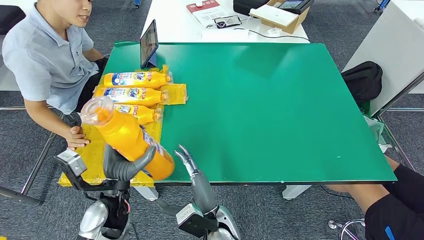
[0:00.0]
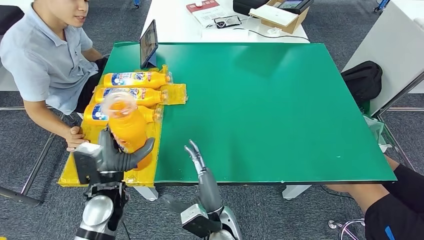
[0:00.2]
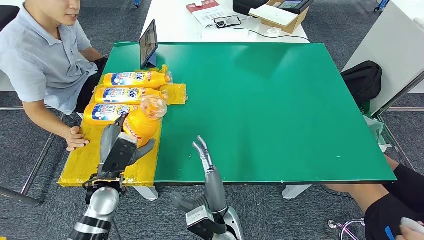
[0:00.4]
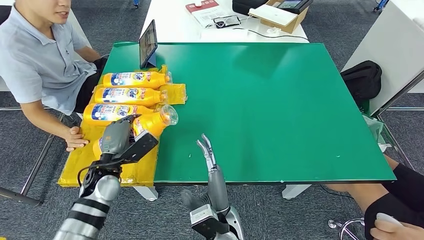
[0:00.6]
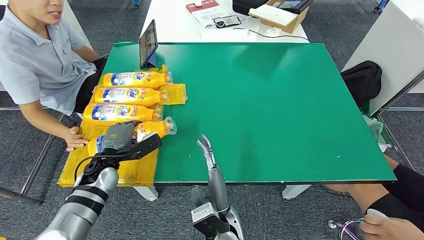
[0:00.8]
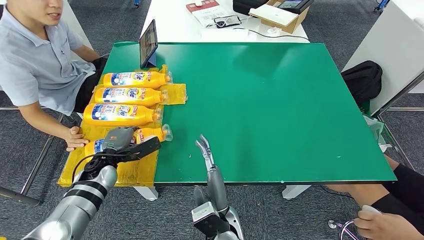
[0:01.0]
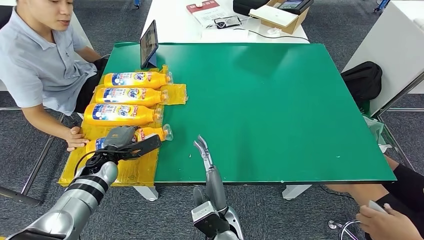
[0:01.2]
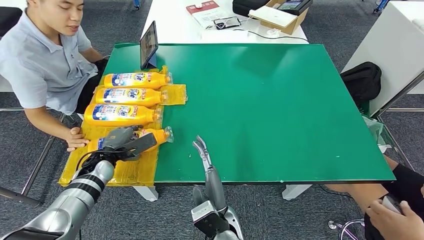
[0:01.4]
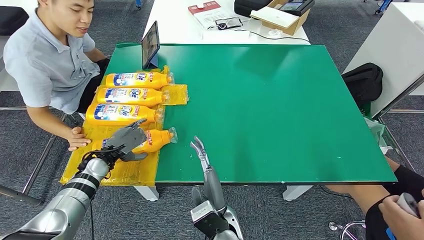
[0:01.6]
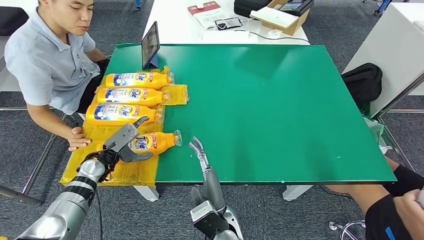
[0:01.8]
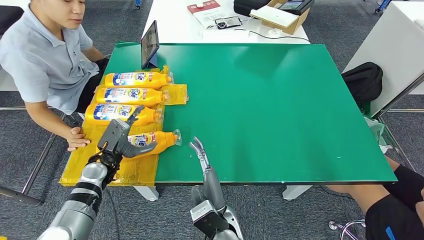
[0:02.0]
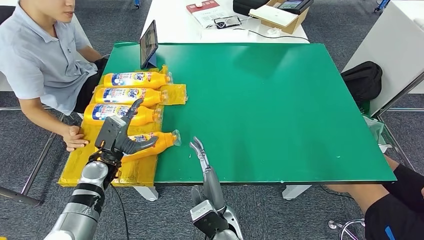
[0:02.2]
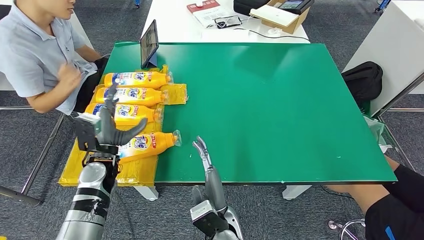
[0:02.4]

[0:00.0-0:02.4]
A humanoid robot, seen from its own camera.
Step, 0:00.0 to 0:02.4: Flip the fast-moving consumer goods bottle to the front side.
0:01.2 to 0:02.4: The left hand shifts by some 5 cm.
